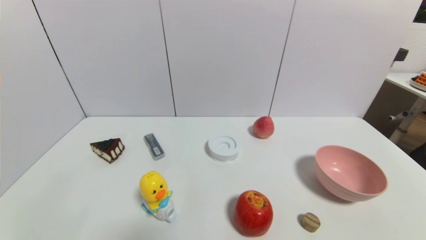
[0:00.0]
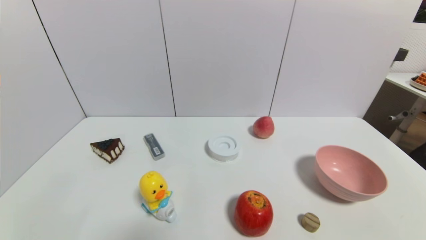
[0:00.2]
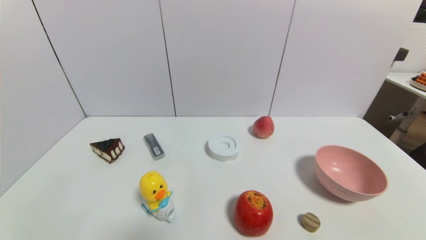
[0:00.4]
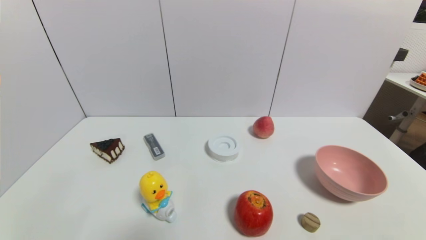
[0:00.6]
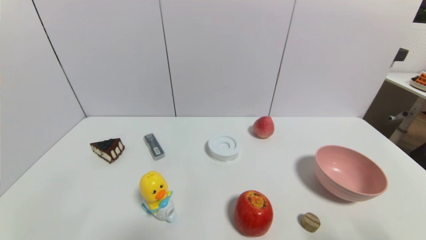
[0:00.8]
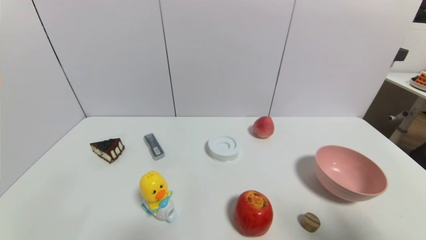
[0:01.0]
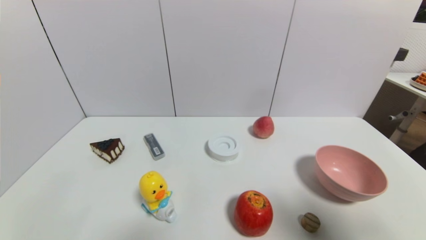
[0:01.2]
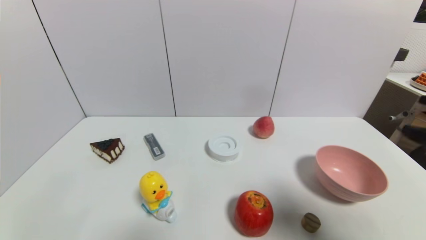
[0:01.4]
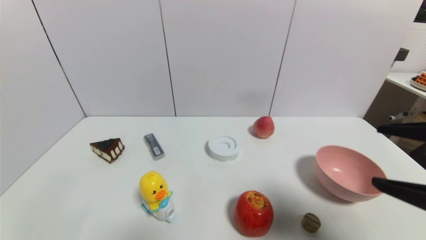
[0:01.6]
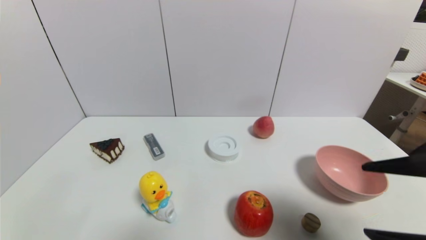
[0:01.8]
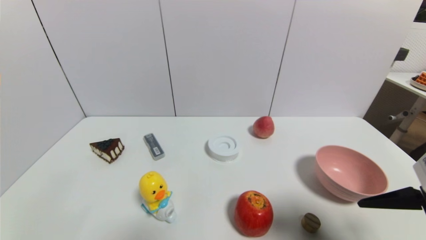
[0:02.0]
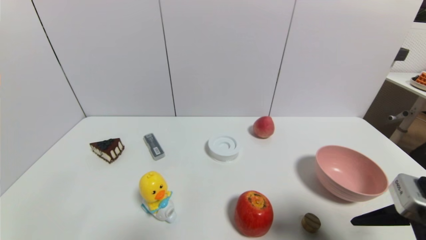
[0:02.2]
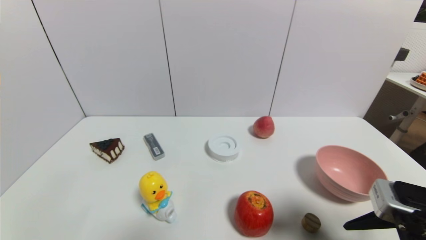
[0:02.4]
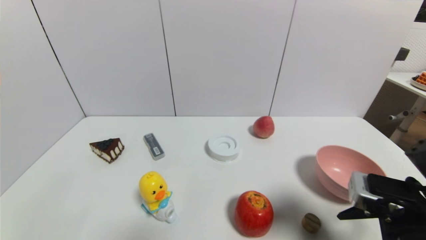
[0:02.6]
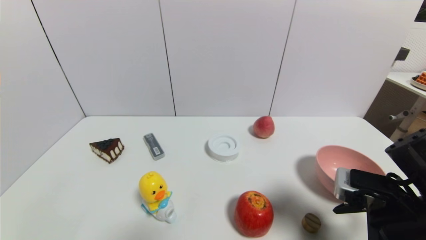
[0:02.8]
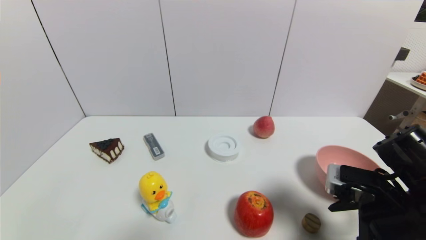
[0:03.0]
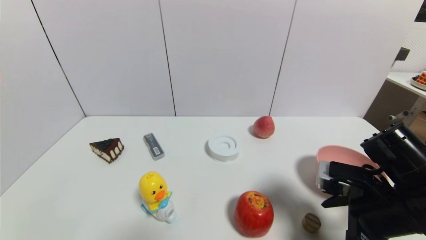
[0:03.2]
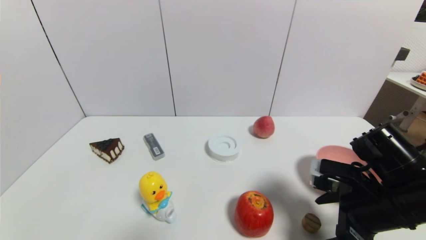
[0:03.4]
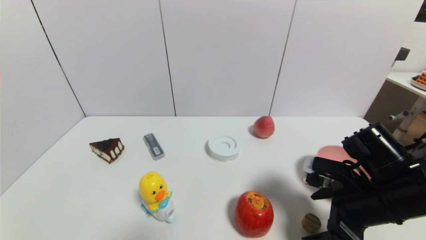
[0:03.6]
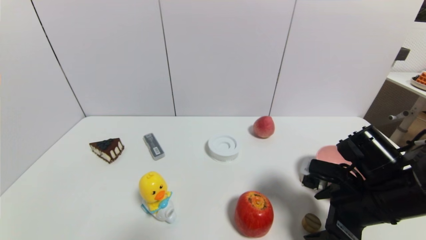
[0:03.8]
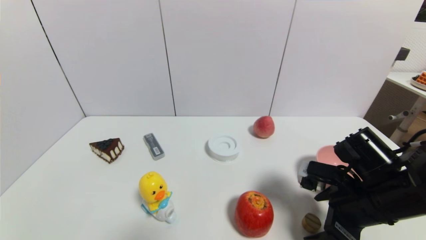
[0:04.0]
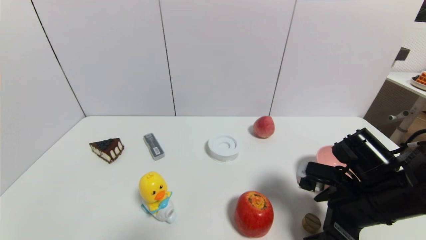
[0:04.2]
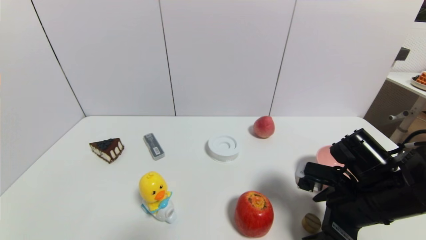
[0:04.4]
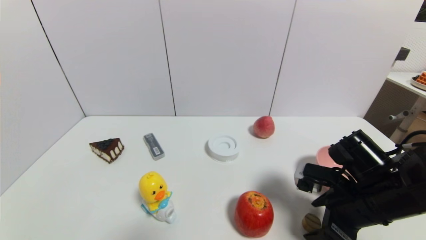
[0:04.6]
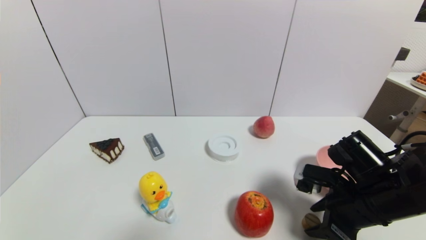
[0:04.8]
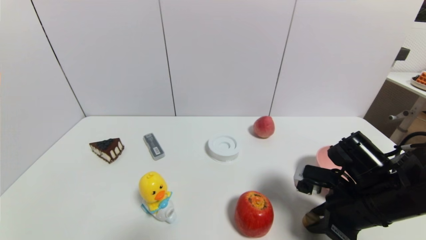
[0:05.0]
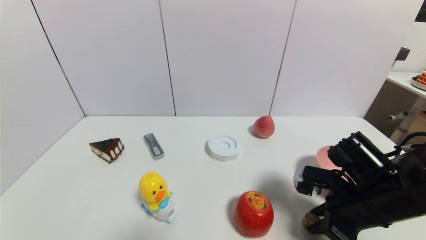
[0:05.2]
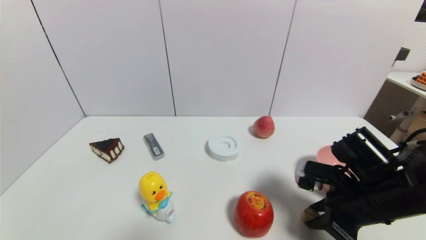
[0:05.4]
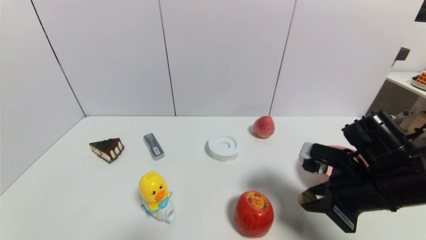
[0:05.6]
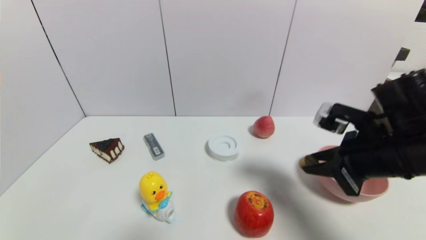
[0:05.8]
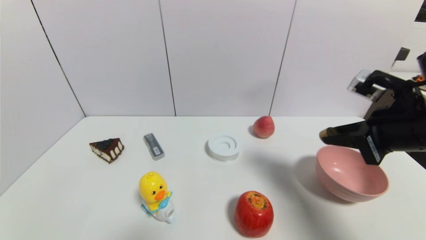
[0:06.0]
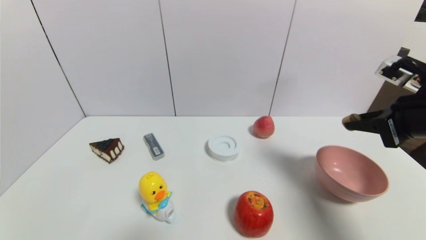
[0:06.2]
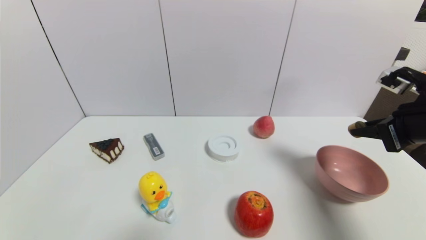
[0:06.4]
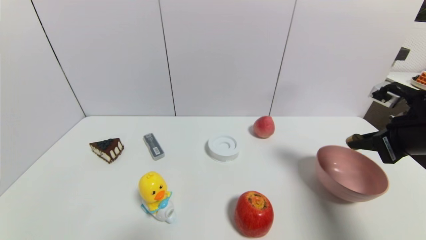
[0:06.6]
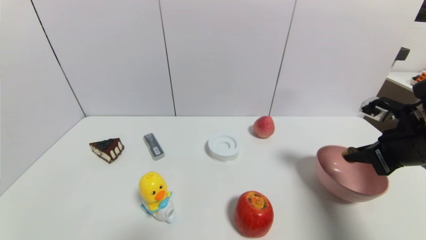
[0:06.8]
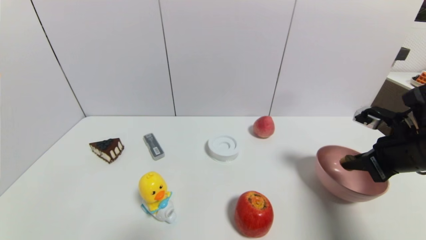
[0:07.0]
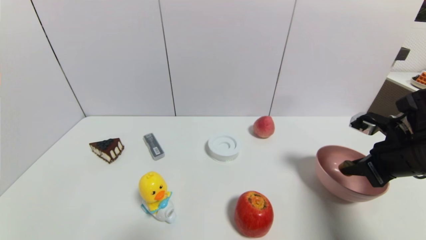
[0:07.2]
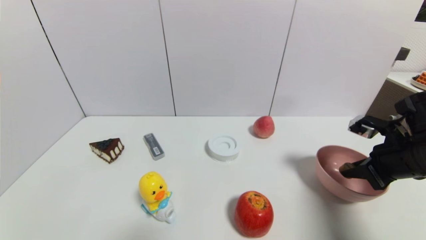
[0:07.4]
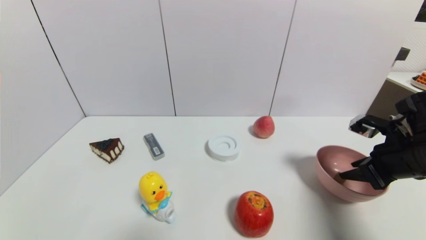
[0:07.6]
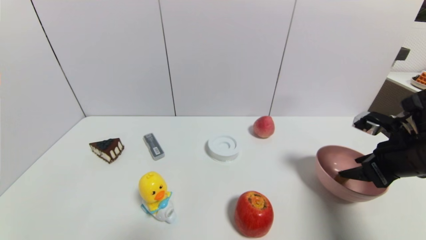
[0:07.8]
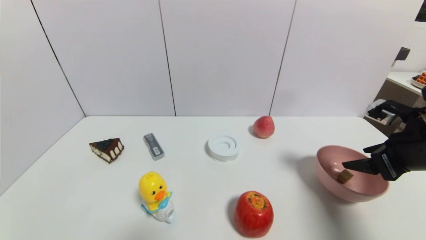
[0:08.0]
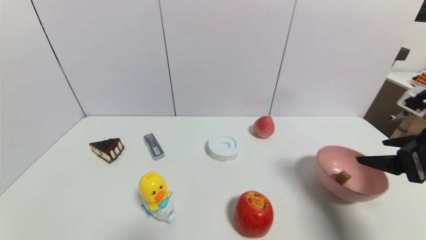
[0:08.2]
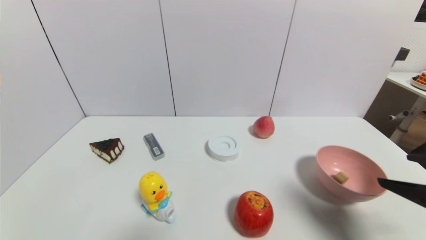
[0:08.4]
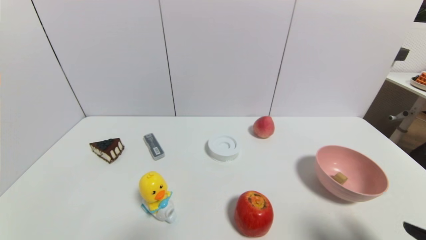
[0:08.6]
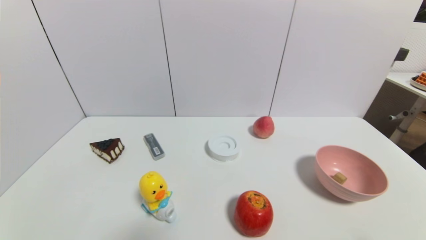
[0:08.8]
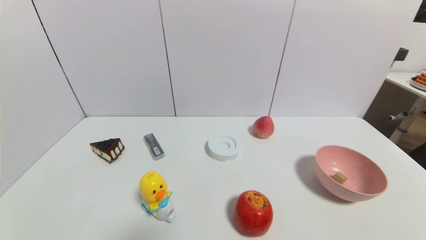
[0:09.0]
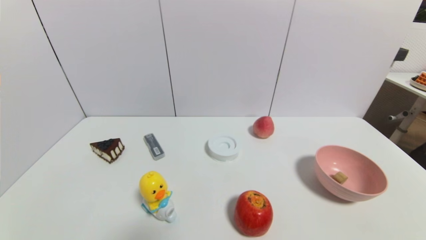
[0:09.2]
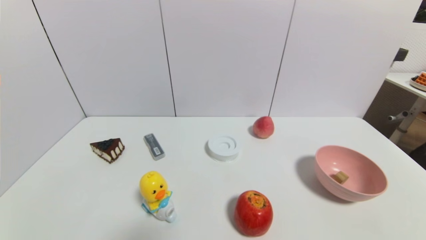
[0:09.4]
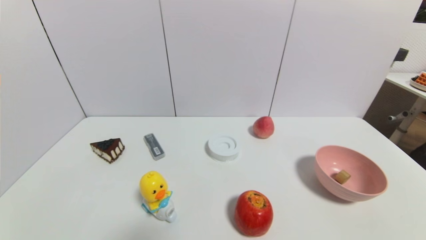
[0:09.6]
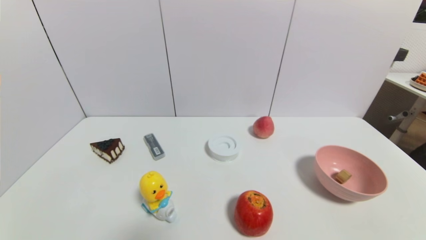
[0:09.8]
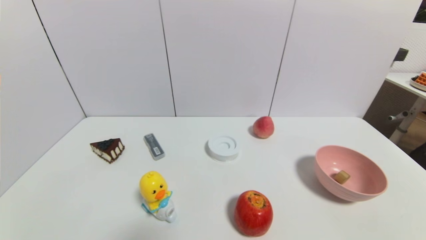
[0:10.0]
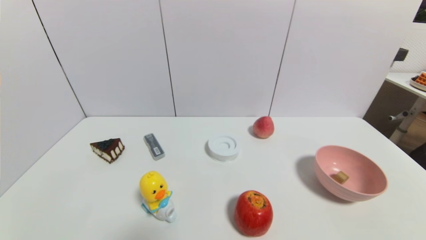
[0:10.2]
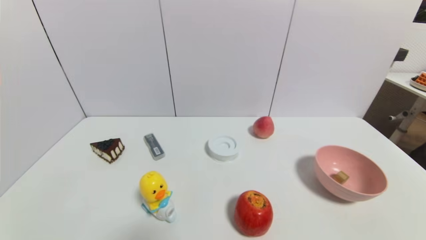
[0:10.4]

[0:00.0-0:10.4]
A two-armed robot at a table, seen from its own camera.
Task of the whole recording: use a gripper to pick the target object and place on the pink bowl.
Step, 0:00.0 to 0:05.0: Grasp the round wooden block with the right gripper.
Step, 0:05.2 to 0:07.6: Place the round wooden block on the pink bowl with the right gripper.
0:00.0 to 0:01.4: The right gripper goes about 25 cm upward and forward.
0:01.4 to 0:03.0: The right gripper travels downward and forward by about 15 cm.
0:03.0 to 0:04.4: The right gripper changes place by some 5 cm.
0:04.4 to 0:06.0: The right gripper heads upward and to the right, covering approximately 15 cm, and closes its fingers.
0:06.0 to 0:07.4: The right gripper travels downward by some 10 cm.
0:07.4 to 0:09.0: The right gripper is displaced backward by about 25 cm, and opens its fingers.
